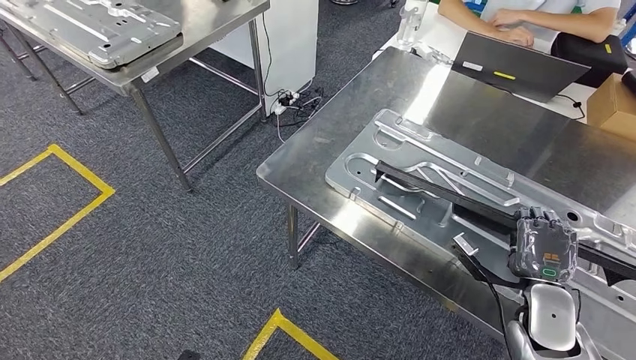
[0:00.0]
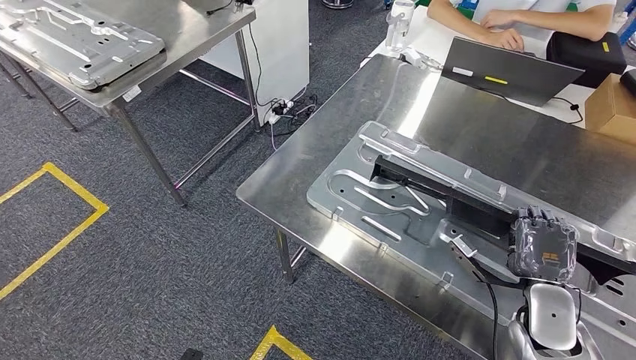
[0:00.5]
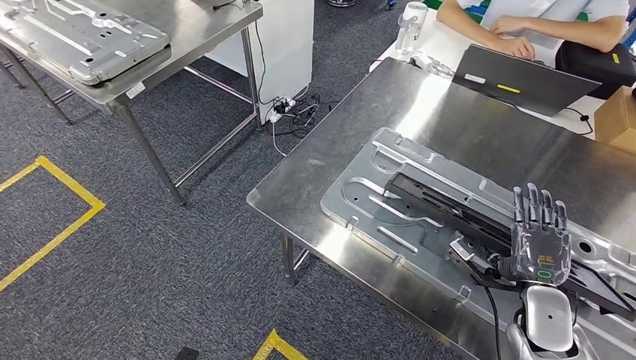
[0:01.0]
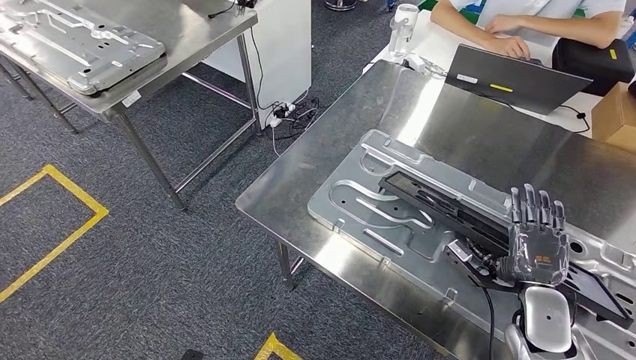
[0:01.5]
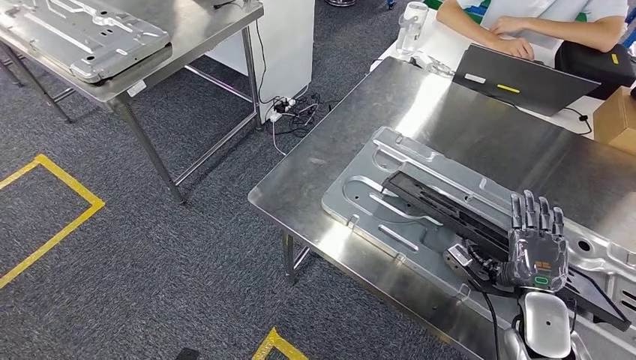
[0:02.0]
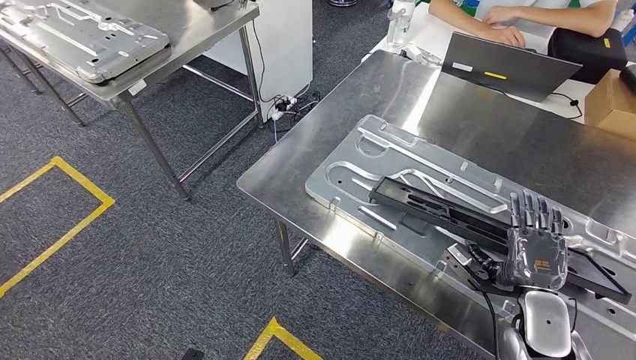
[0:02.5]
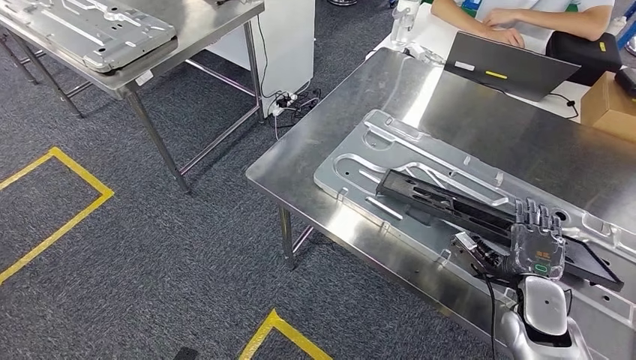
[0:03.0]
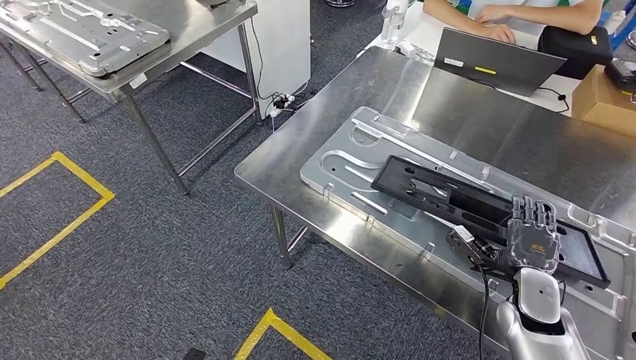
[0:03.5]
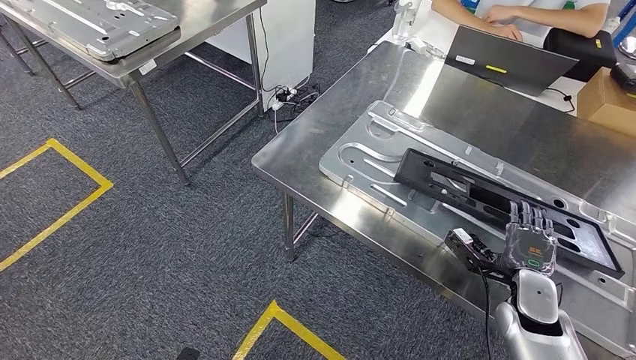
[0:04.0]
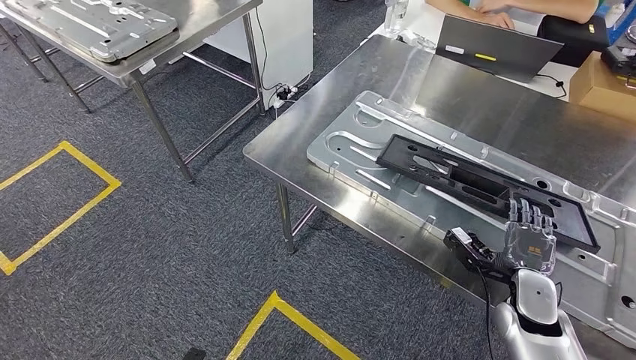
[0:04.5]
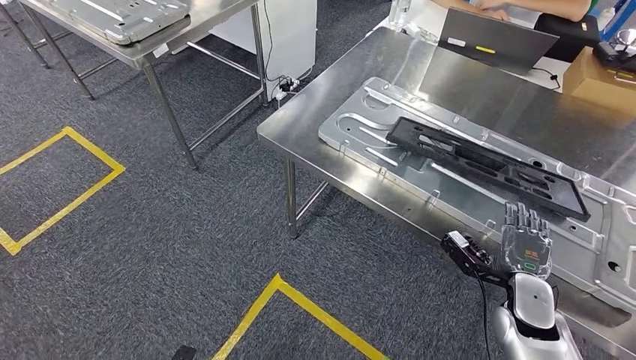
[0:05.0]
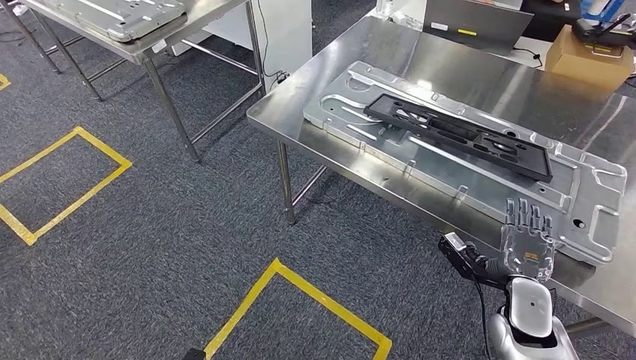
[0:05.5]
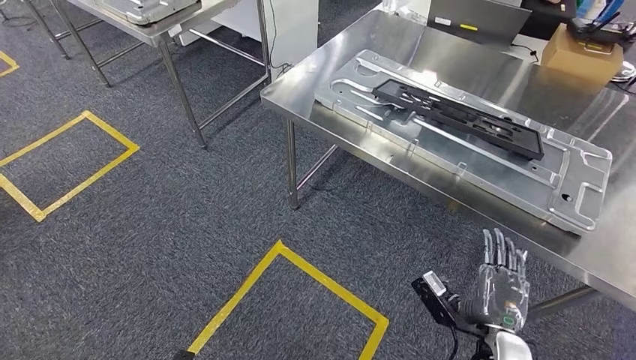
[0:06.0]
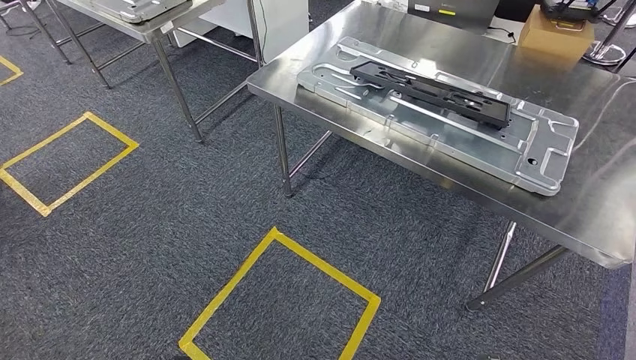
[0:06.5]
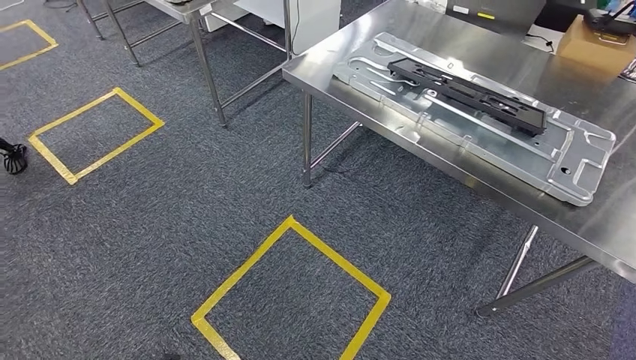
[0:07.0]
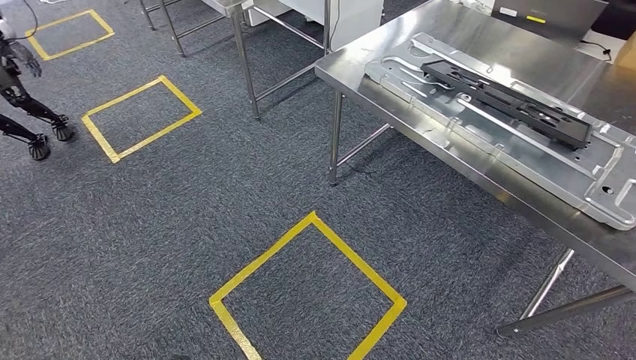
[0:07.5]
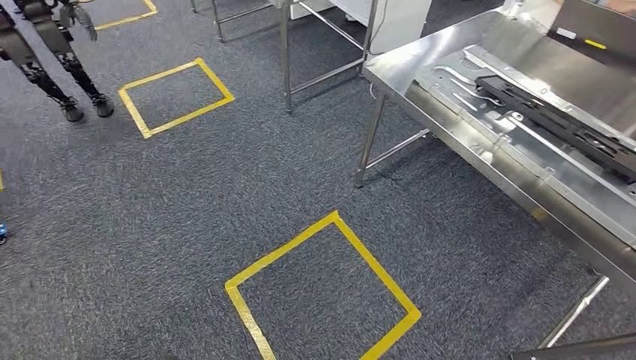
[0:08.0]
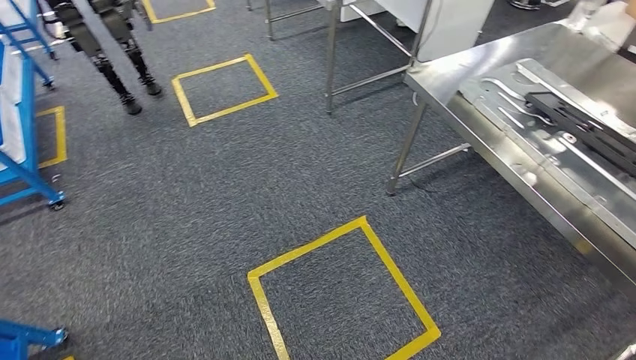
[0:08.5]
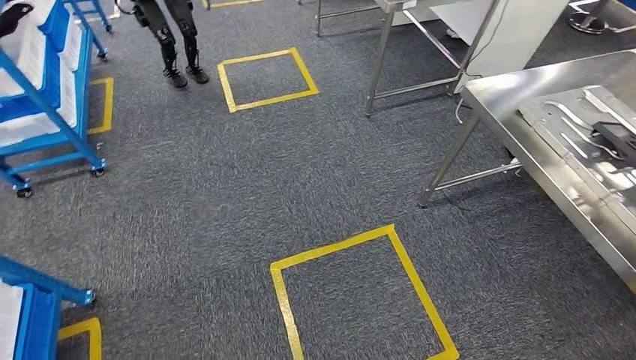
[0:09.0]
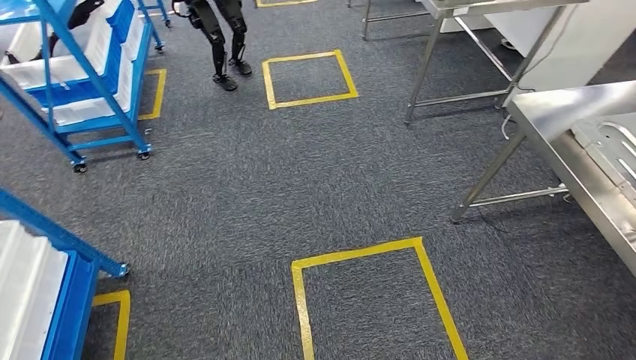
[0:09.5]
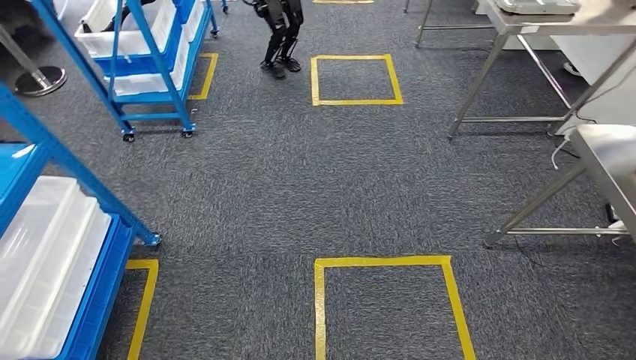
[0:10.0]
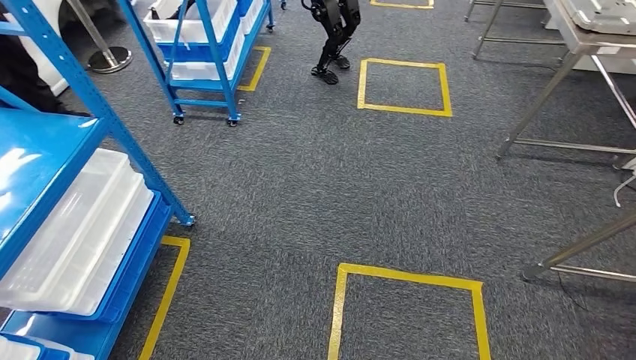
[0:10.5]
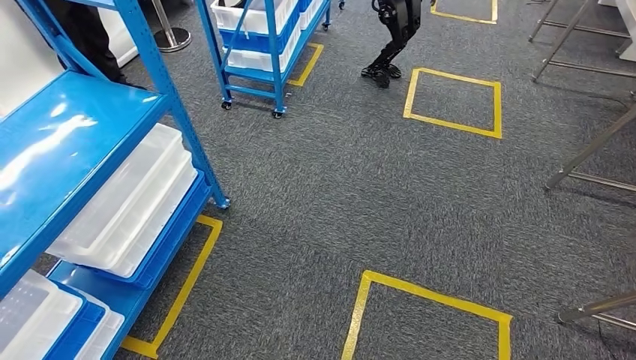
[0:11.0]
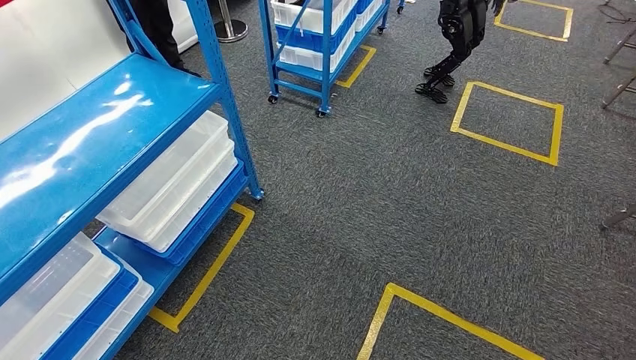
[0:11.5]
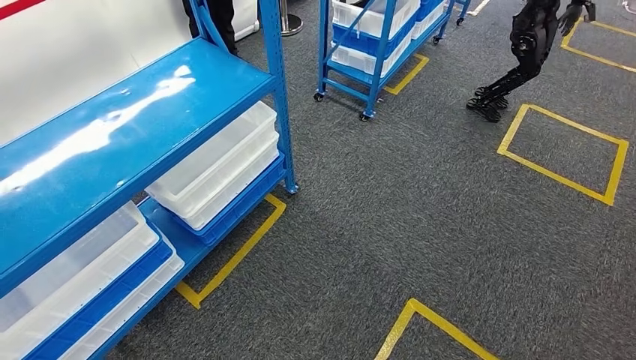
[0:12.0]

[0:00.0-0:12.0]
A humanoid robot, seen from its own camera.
Step, 0:00.0 to 0:06.5: Insert the large material into the corresponding slot on the workbench.

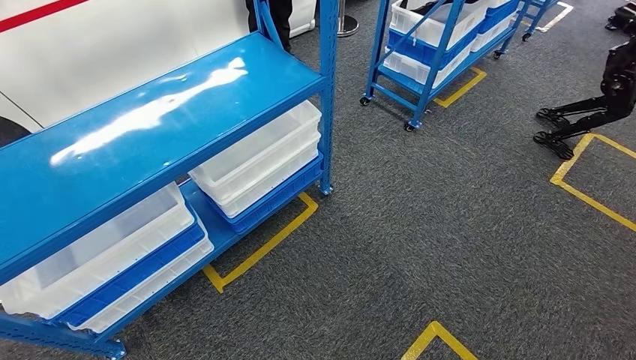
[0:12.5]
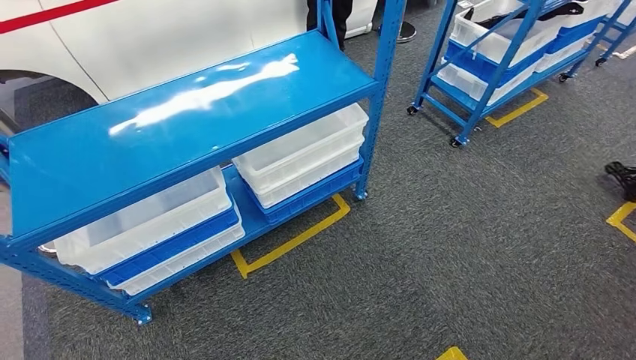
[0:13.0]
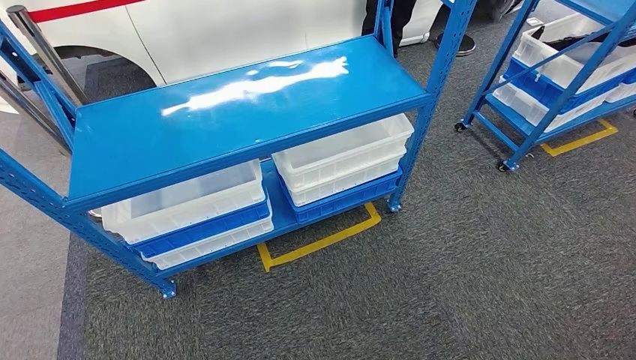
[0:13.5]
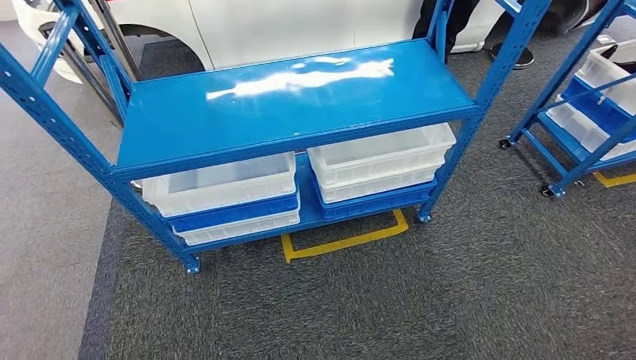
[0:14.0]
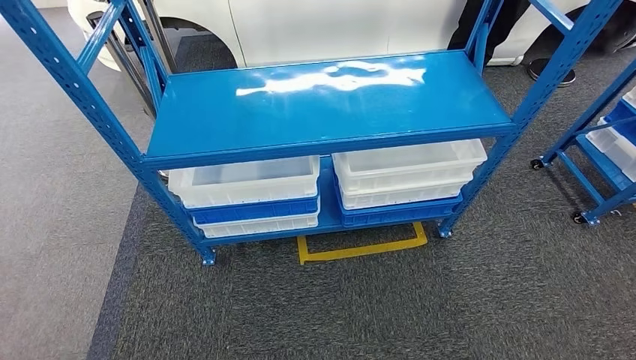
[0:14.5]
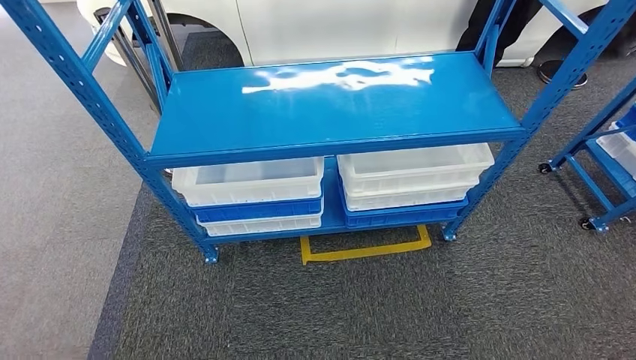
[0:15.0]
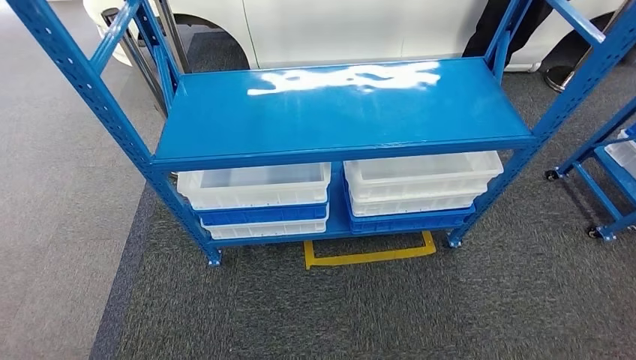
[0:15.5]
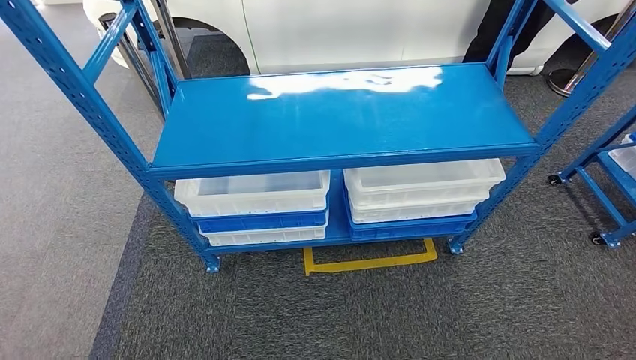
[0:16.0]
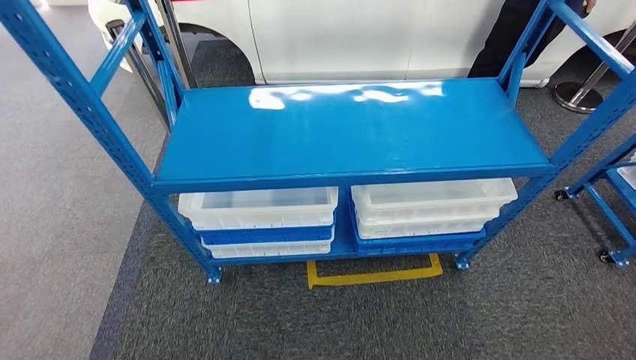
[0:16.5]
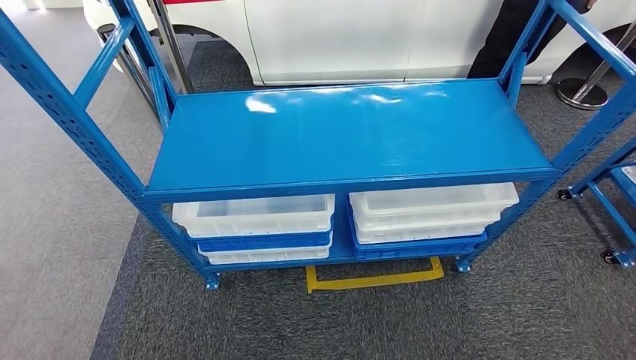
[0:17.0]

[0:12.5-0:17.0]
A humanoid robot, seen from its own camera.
Step, 0:12.5 to 0:17.0: Move to the initial position of the shelf.
